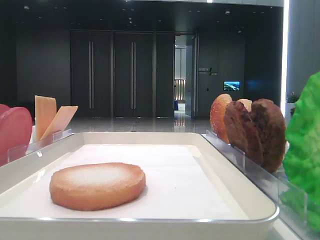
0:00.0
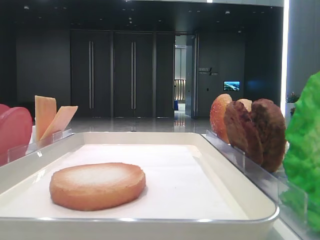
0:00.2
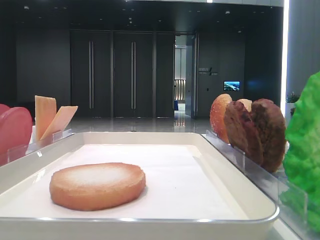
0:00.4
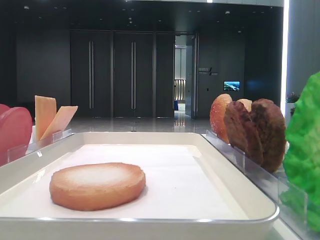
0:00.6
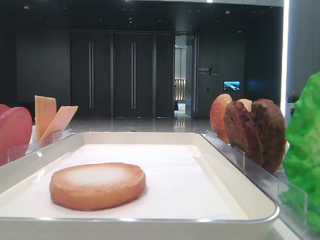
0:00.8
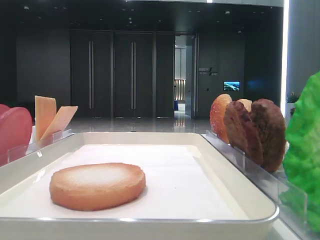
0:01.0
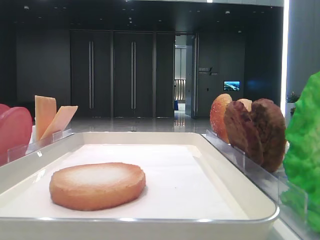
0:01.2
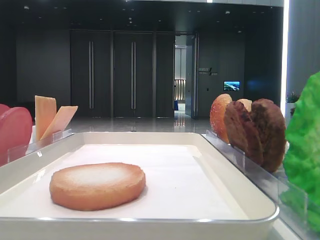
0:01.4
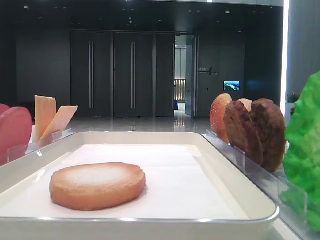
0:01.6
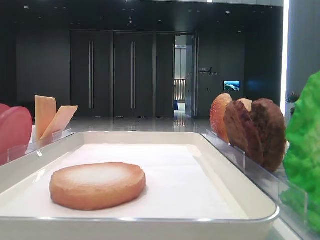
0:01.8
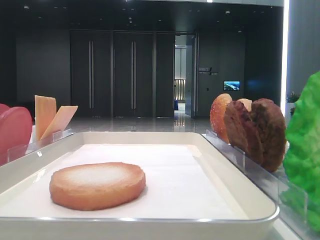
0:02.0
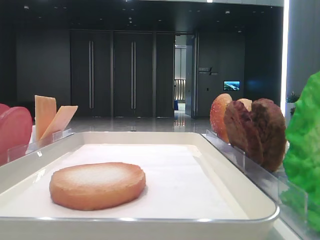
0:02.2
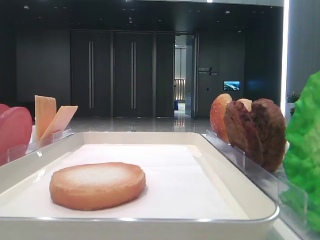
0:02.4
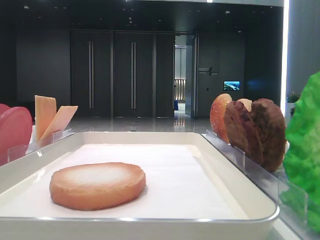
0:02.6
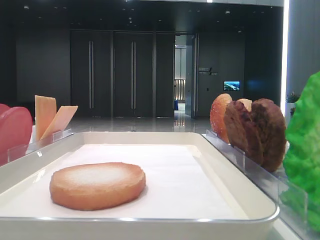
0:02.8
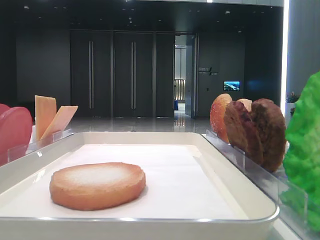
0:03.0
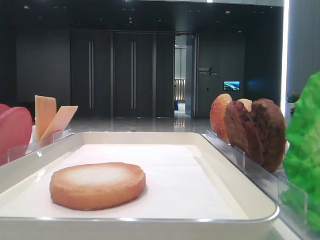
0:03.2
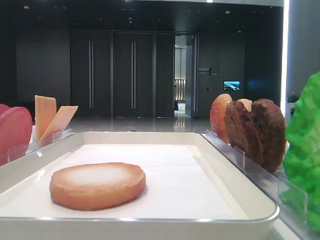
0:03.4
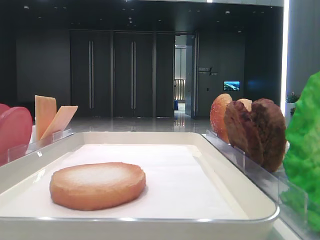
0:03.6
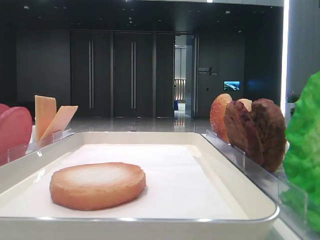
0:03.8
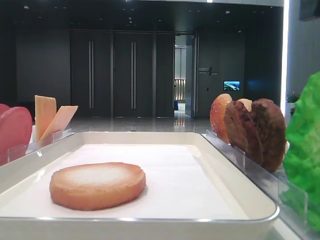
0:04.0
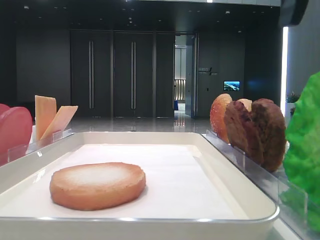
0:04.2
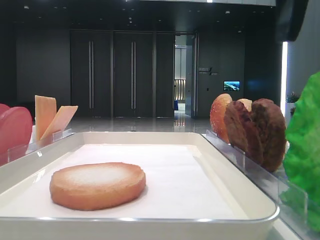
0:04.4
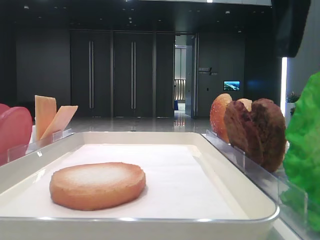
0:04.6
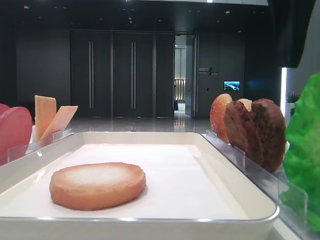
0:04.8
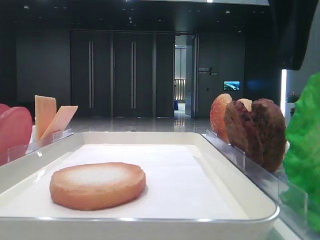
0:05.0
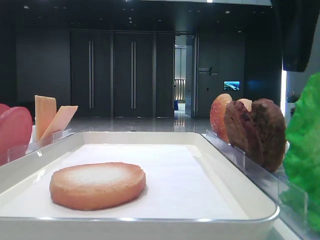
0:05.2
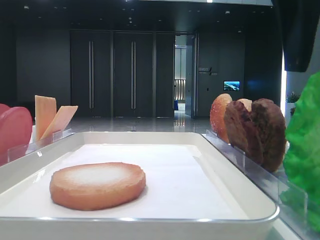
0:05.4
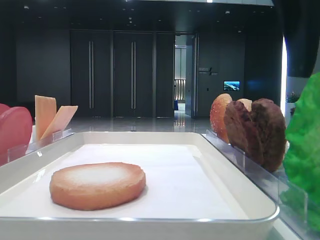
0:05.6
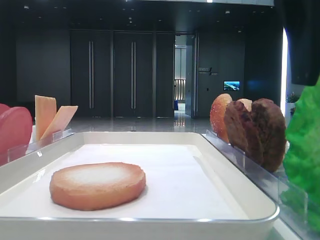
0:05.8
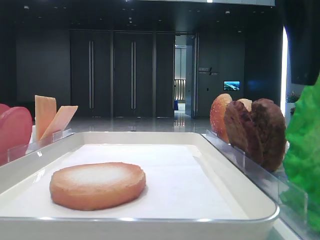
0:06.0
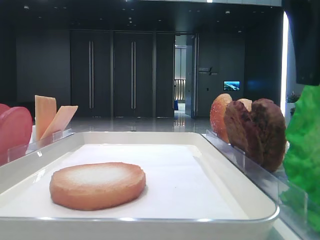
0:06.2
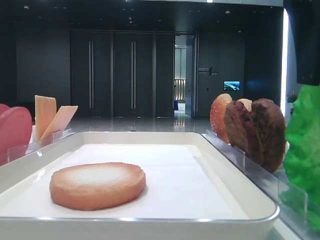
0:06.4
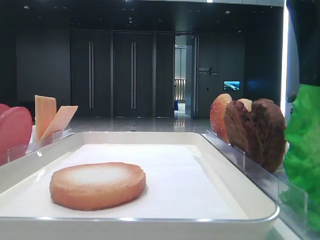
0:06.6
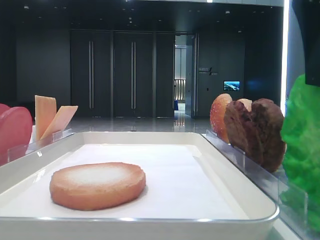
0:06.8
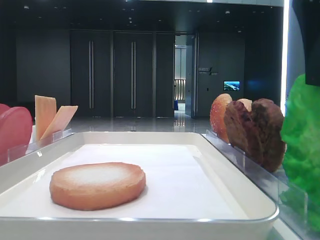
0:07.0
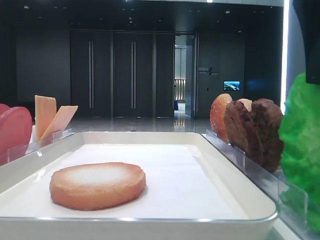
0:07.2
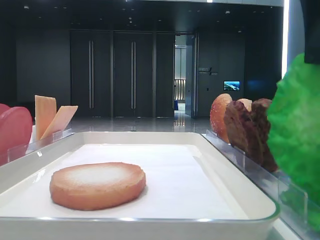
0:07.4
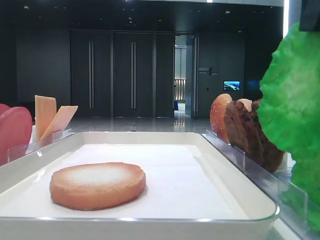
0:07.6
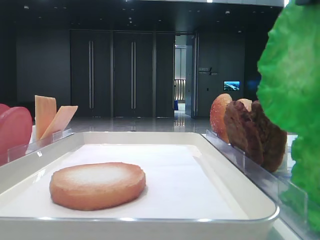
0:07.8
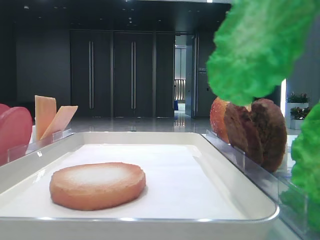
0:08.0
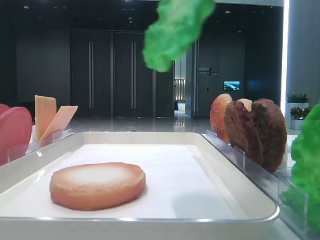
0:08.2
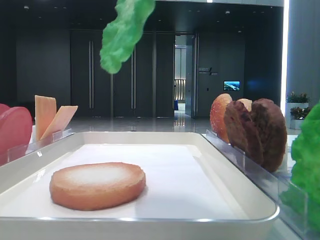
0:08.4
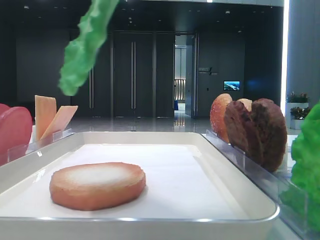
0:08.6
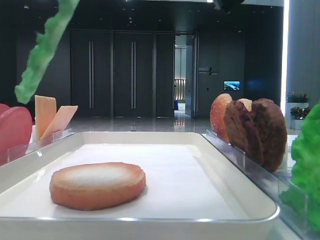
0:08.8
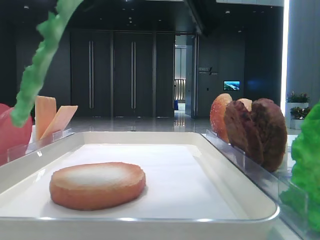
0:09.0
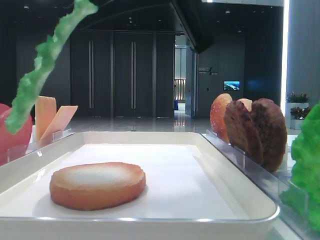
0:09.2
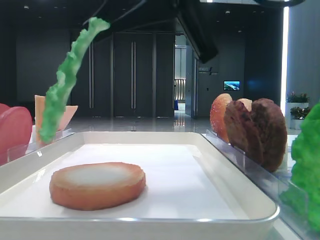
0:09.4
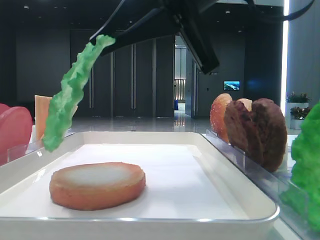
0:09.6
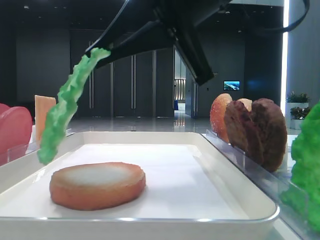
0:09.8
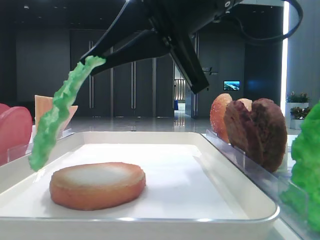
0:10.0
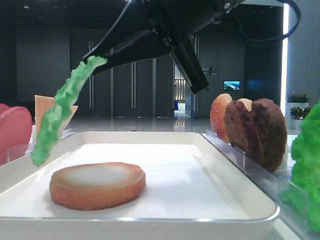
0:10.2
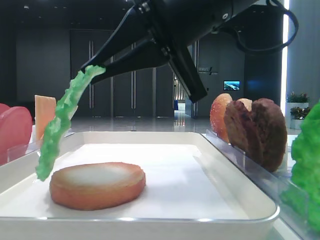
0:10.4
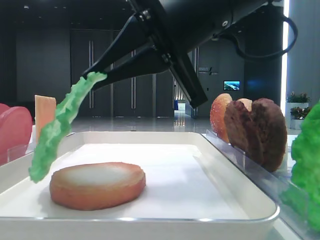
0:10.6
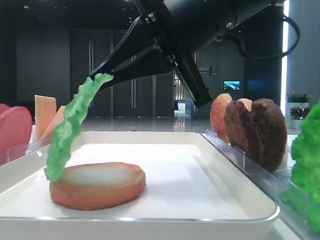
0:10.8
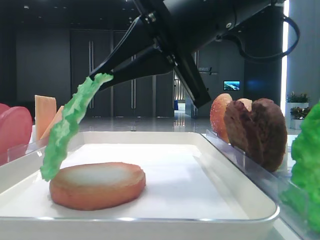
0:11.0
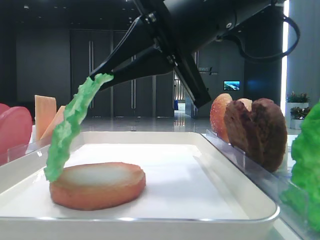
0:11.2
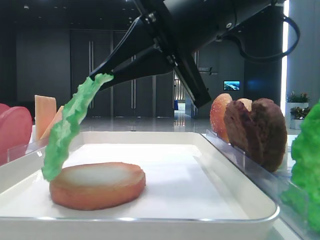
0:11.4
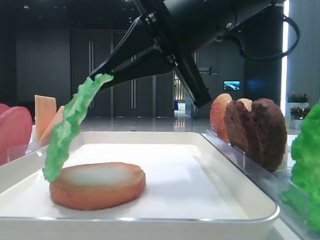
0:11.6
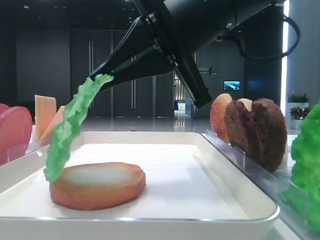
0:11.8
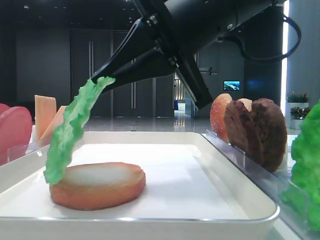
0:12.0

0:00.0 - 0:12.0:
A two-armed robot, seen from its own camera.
Step, 0:00.0 - 0:06.8: Grab the lettuce leaf with the right hand.
0:03.0 - 0:04.4: The right gripper is displaced to the left by about 10 cm.
0:04.4 - 0:06.0: There are only small adjustments of the grippers.
0:06.0 - 0:07.6: The right gripper closes up.
0:07.6 - 0:09.0: The right gripper heads to the left, covering approximately 10 cm.
0:09.0 - 0:10.4: The right gripper shifts roughly 5 cm downward.
0:10.4 - 0:12.0: Neither gripper changes place.

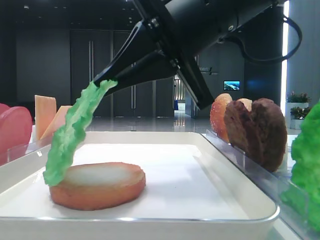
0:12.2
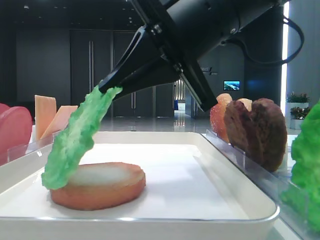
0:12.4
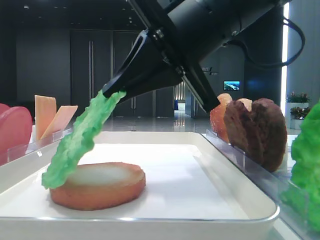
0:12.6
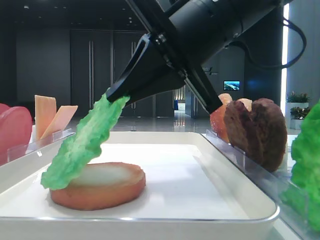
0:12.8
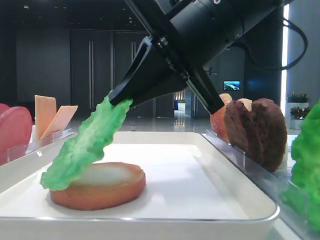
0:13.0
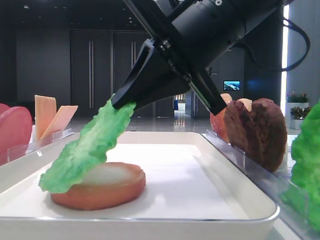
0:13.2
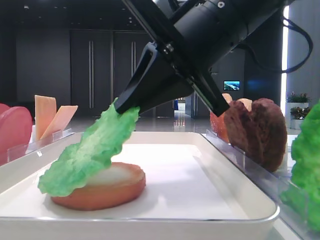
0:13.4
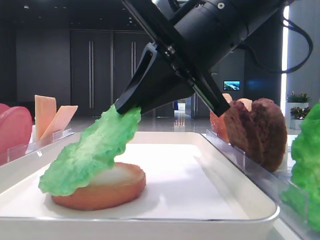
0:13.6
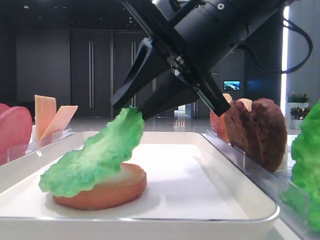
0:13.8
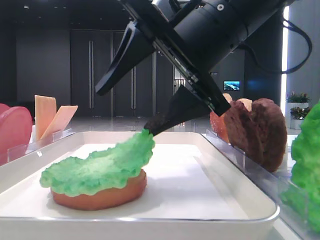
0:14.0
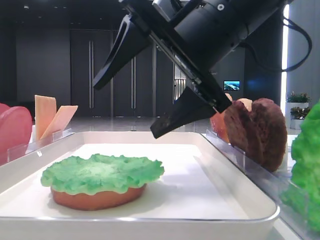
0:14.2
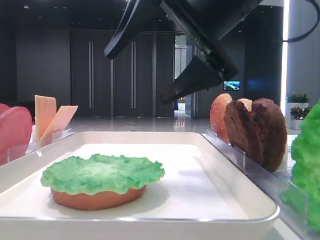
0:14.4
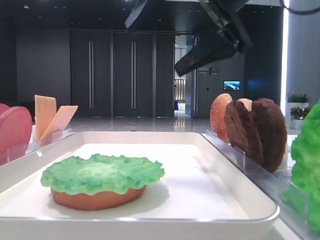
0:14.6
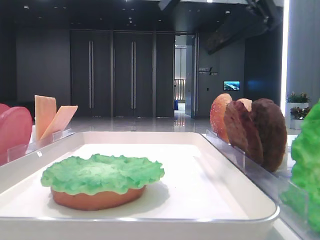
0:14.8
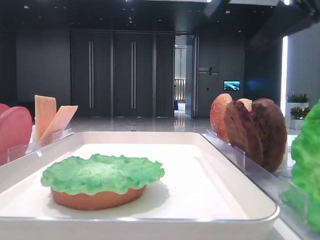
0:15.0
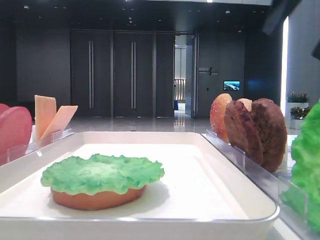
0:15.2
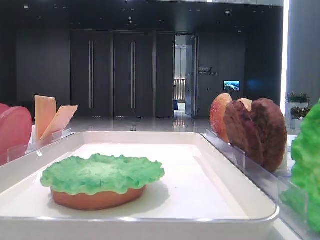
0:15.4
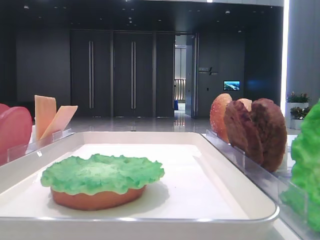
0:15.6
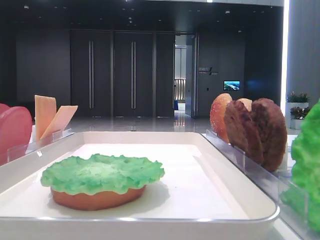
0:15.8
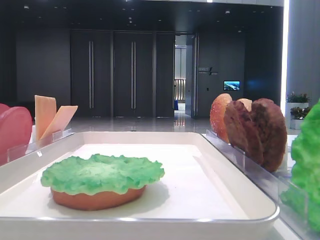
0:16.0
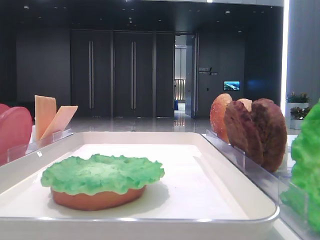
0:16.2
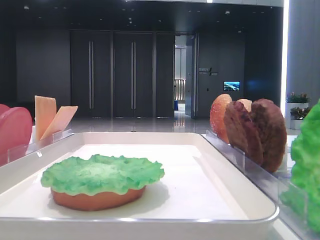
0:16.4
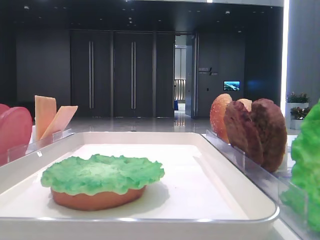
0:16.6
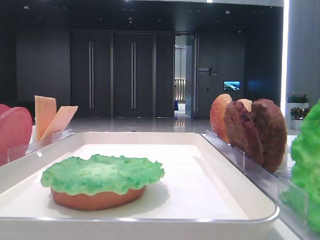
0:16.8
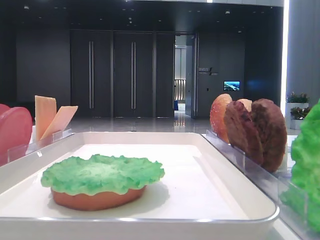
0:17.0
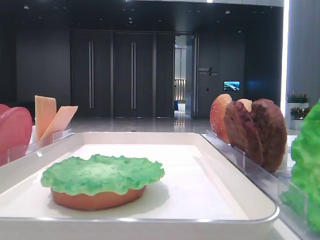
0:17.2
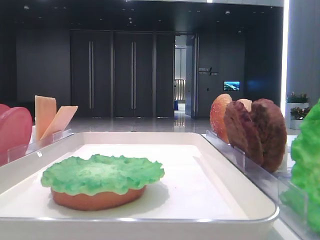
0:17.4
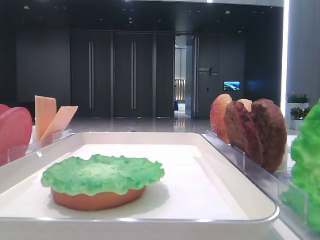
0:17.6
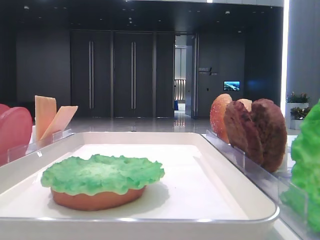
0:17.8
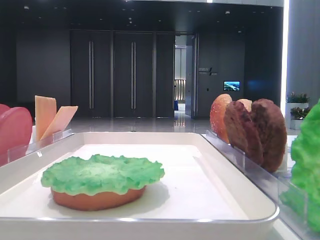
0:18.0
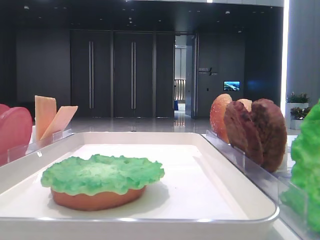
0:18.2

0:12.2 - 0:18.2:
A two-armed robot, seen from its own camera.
0:12.2 - 0:13.8: There are only small adjustments of the grippers.
0:13.8 - 0:15.2: The right gripper shifts about 20 cm to the right and upward, and opens.
0:15.2 - 0:16.6: The right gripper moves backward, some 20 cm.

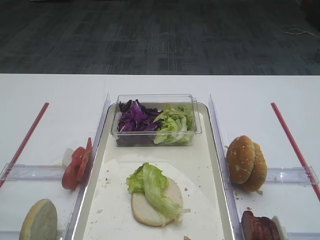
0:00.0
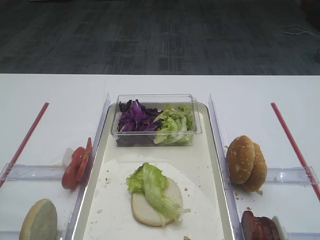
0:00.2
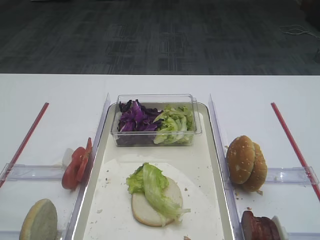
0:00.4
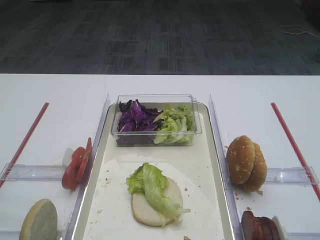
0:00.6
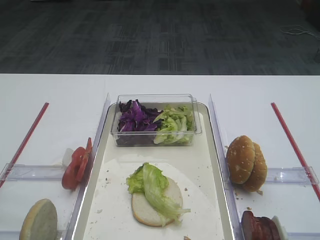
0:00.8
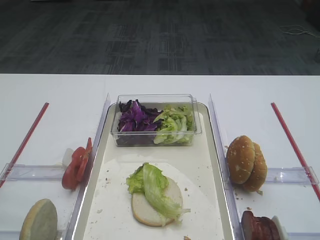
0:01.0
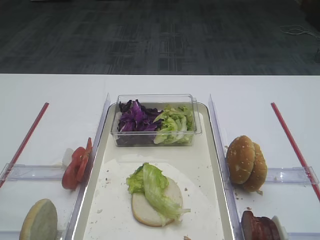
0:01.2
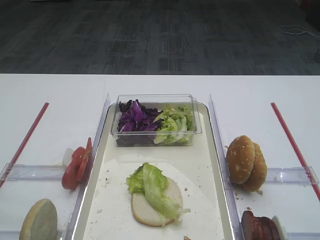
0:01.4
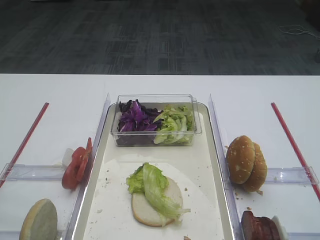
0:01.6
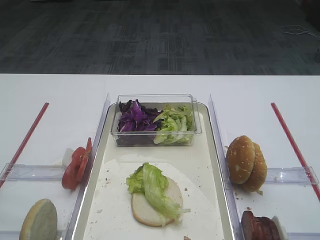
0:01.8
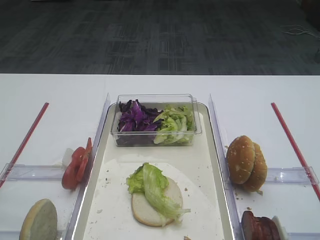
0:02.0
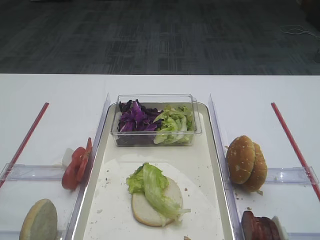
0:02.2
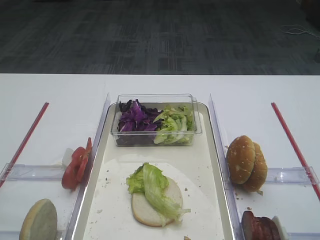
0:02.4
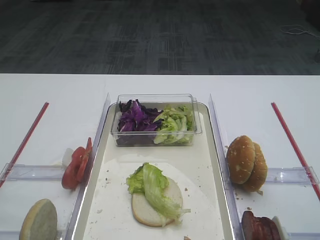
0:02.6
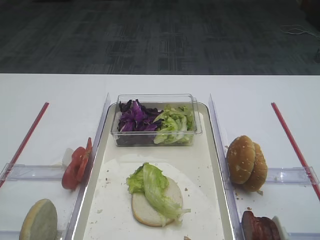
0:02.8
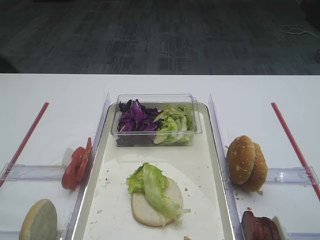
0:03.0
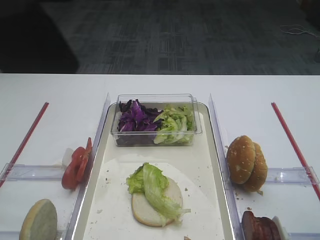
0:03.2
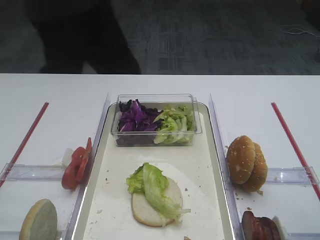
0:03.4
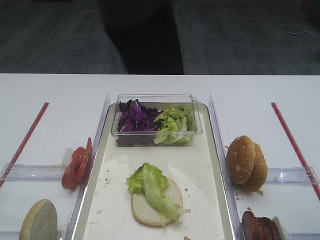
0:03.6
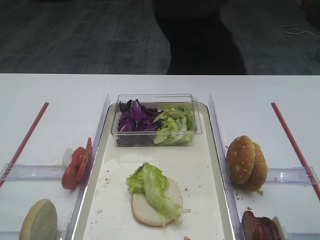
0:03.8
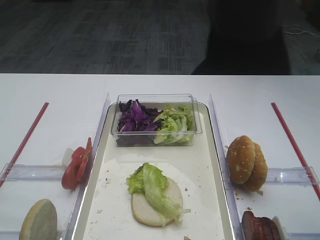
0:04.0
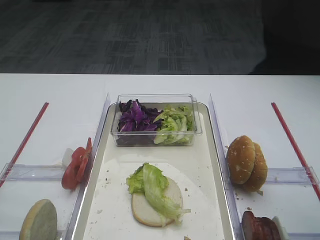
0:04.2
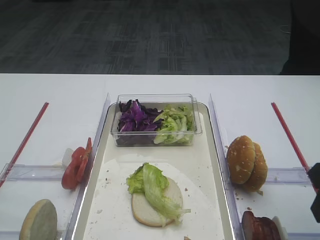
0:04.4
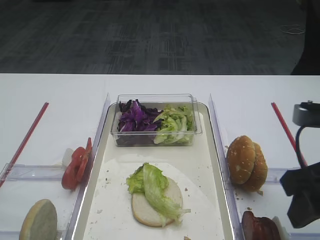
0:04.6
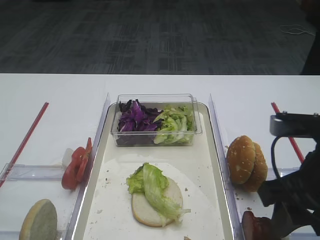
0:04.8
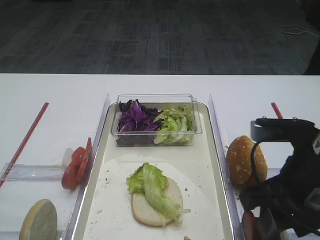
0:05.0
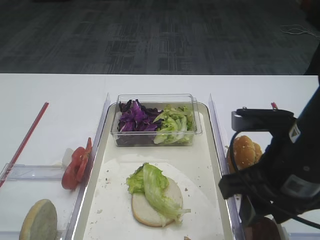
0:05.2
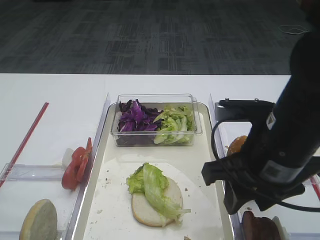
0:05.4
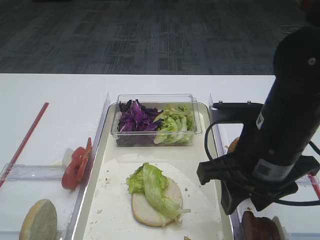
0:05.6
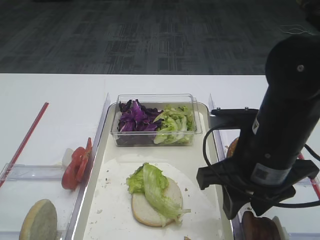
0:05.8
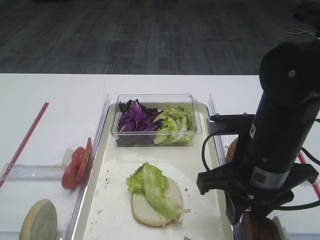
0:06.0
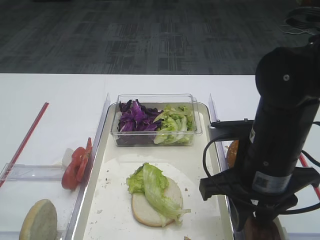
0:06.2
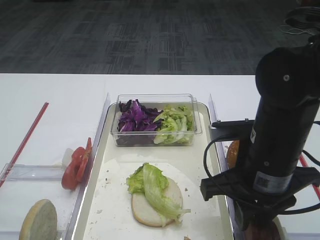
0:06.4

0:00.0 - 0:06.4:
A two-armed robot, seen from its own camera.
0:03.2 - 0:04.8: The right gripper travels to the left by approximately 10 cm.
0:04.8 - 0:06.4: The right gripper goes some 5 cm to the left, and closes.
